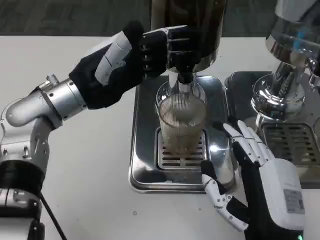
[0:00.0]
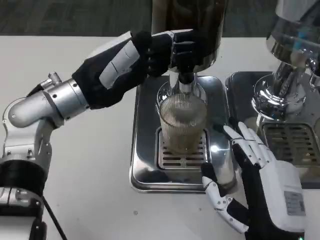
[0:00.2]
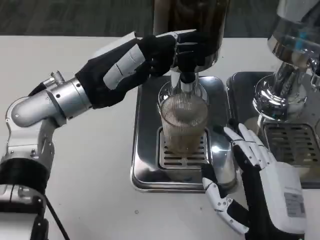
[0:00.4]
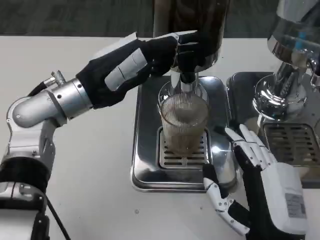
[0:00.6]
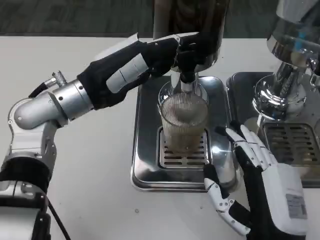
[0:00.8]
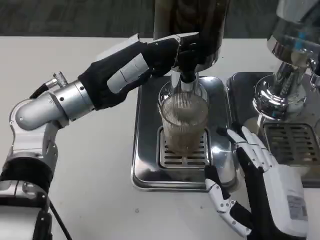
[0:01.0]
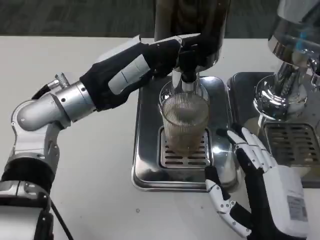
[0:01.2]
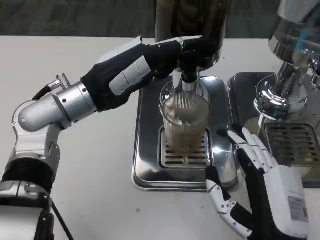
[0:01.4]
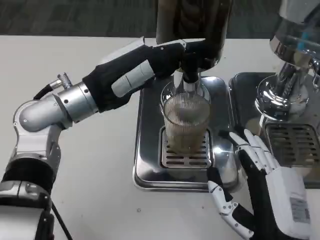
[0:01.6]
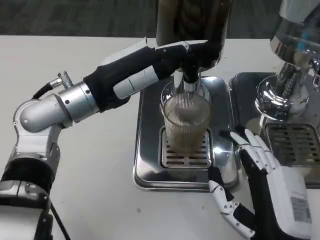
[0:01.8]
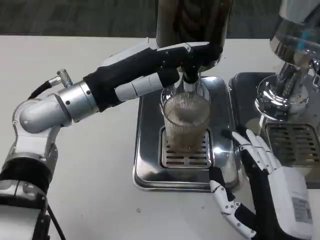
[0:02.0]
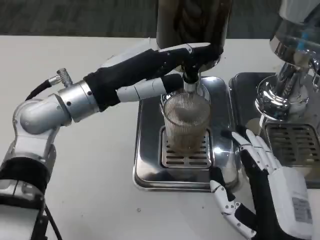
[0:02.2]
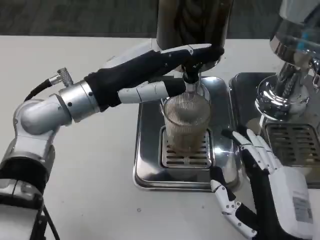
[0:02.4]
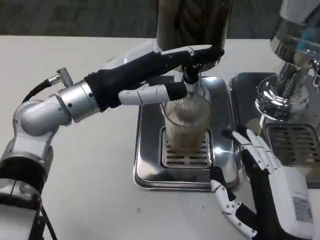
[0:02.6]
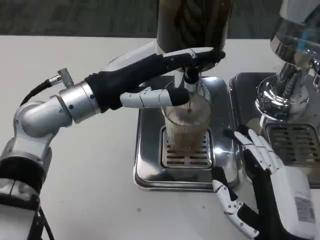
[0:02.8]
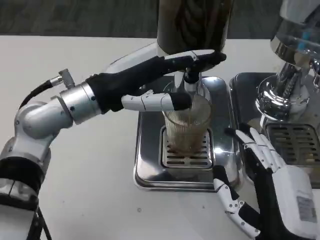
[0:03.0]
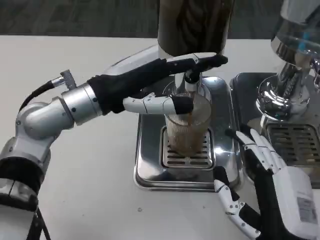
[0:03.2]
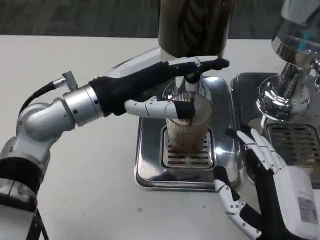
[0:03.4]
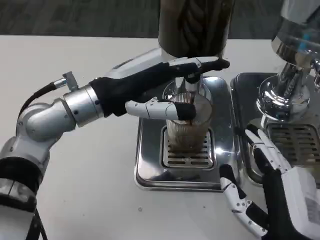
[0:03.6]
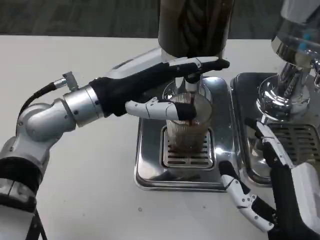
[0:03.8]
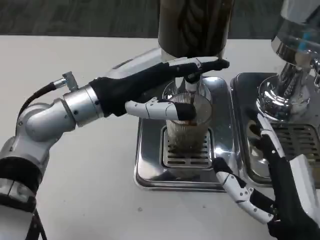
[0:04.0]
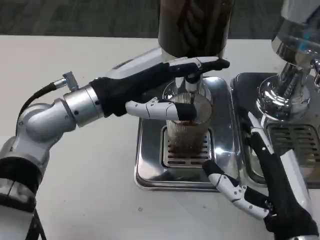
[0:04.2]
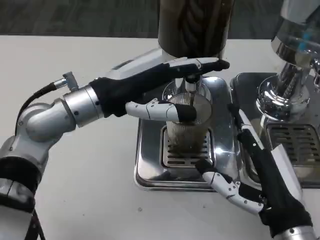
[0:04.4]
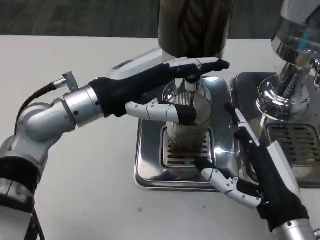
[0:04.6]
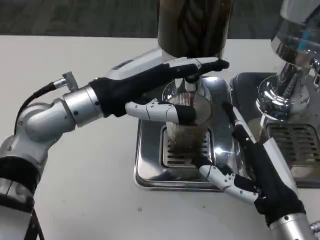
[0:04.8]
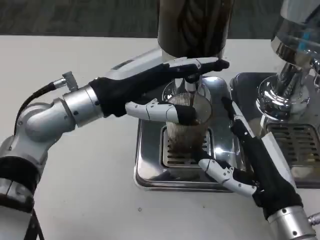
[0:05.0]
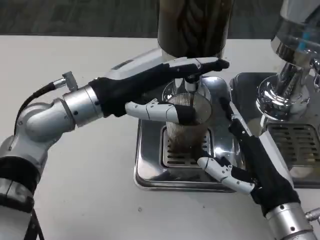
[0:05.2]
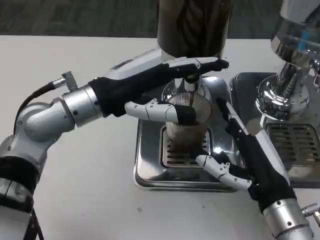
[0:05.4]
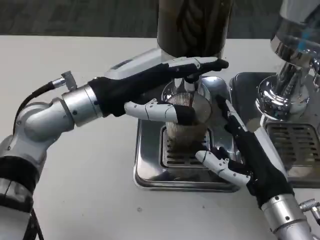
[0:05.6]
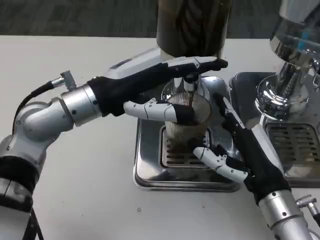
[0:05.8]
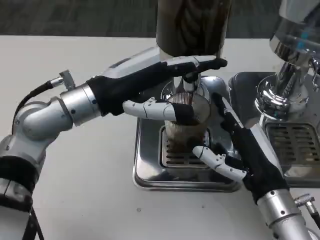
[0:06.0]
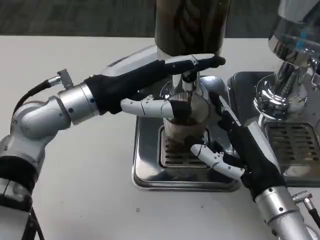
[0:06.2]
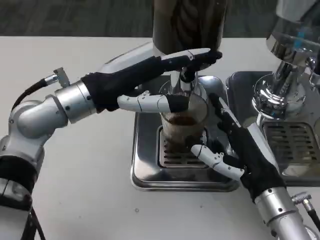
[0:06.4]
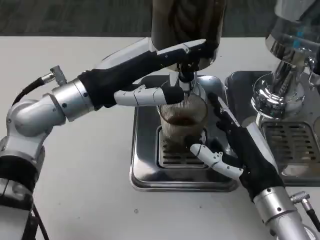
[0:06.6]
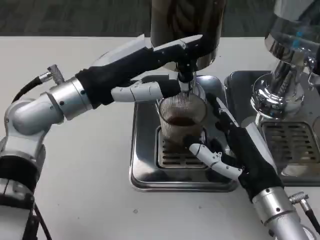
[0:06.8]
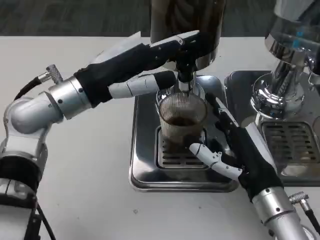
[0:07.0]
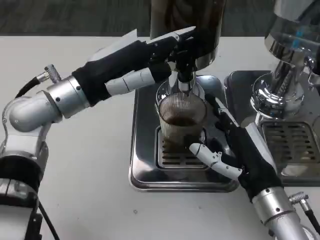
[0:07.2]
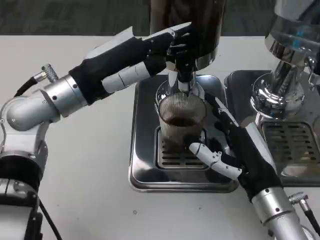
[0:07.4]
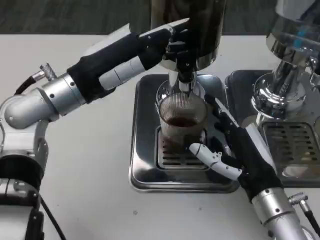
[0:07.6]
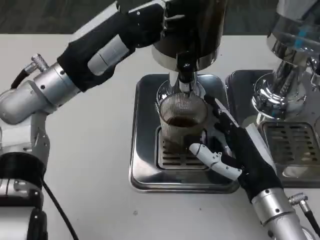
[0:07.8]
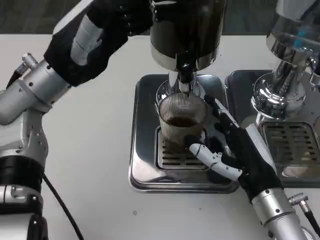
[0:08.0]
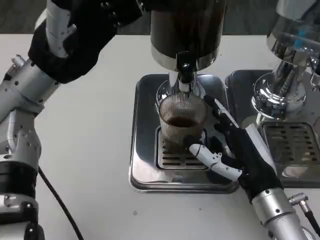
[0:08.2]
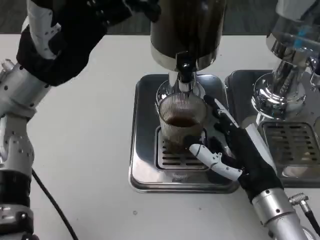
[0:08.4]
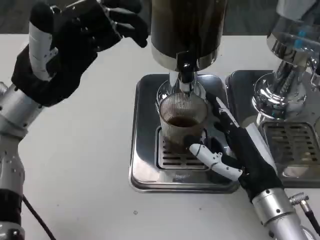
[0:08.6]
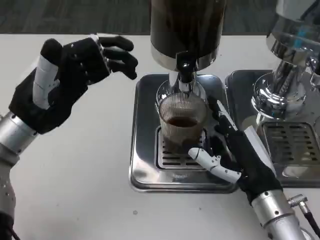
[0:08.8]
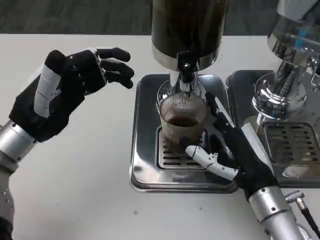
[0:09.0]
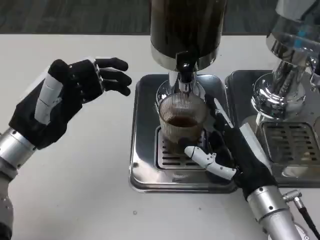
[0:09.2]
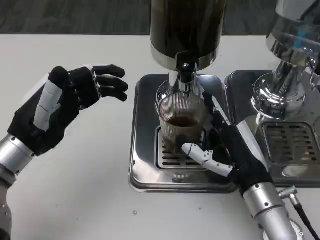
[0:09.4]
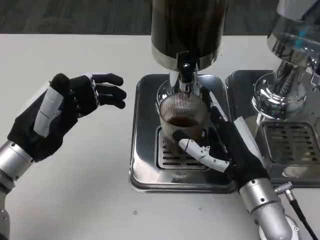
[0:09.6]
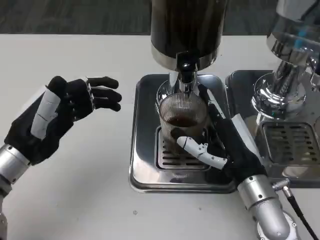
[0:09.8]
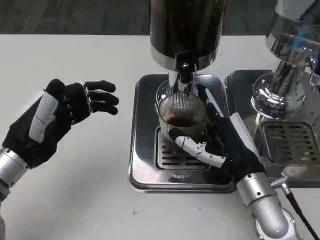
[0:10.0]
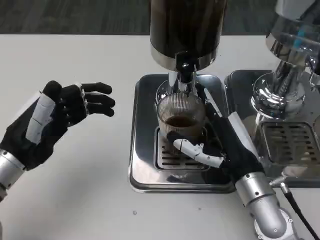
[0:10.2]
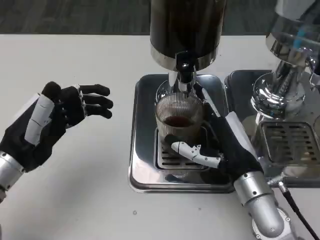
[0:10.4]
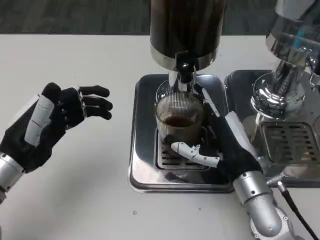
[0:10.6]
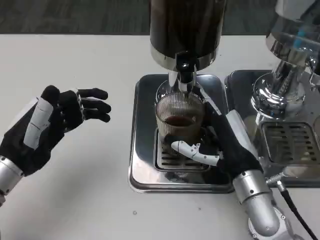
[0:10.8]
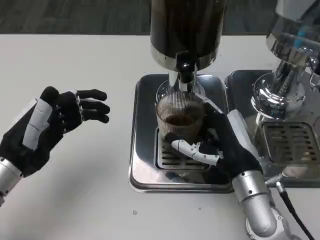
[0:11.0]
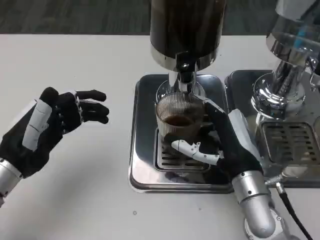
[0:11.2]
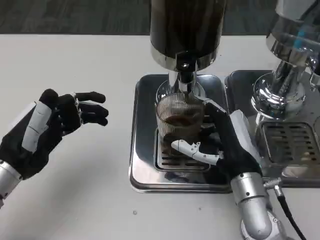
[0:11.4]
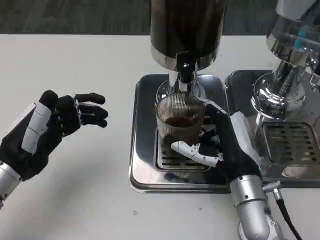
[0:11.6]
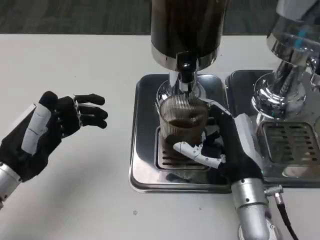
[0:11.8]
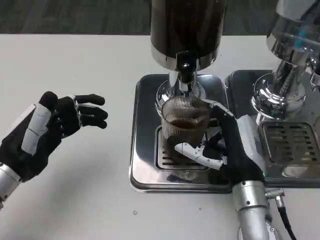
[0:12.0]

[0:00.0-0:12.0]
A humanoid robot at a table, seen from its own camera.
Task of the whole recording: Grasp the cup under the faucet to collect the drink, then remove the cup.
0:04.4 to 0:06.0: The right hand goes about 5 cm forward.
0:07.6 to 0:09.0: The left hand shifts about 10 cm to the left, backward and downward.
0:10.4 to 0:12.0: The hands move only a little.

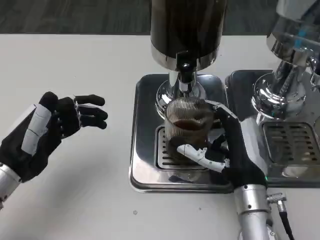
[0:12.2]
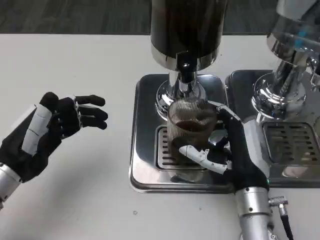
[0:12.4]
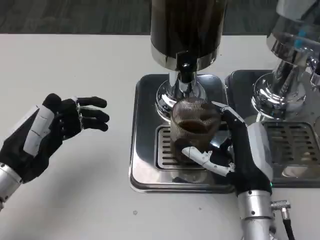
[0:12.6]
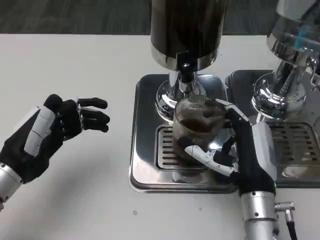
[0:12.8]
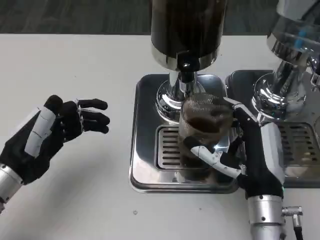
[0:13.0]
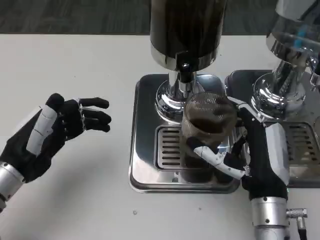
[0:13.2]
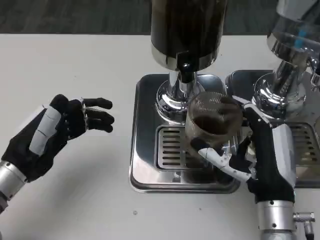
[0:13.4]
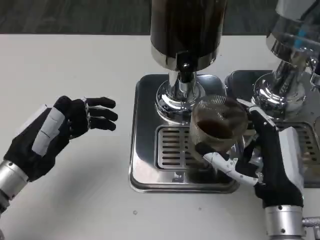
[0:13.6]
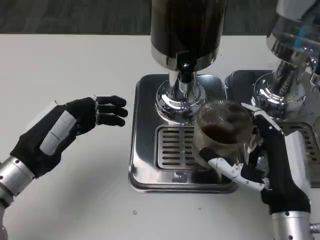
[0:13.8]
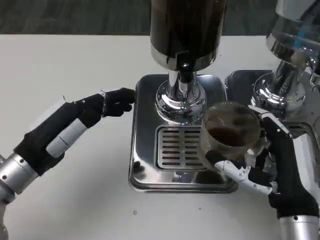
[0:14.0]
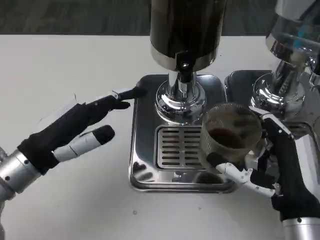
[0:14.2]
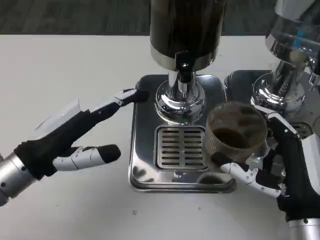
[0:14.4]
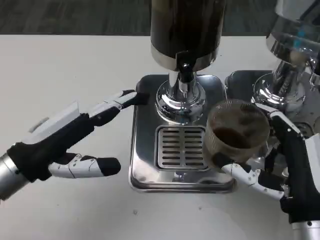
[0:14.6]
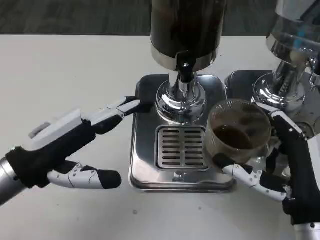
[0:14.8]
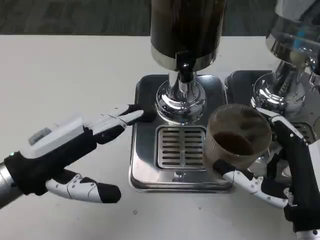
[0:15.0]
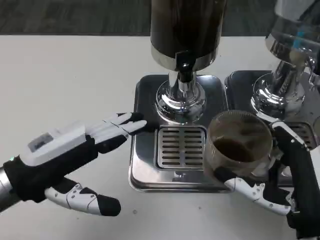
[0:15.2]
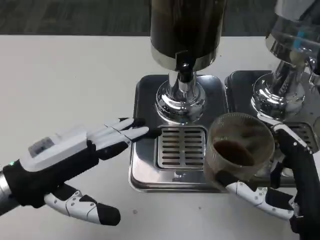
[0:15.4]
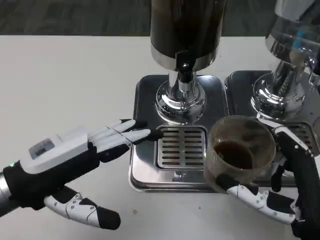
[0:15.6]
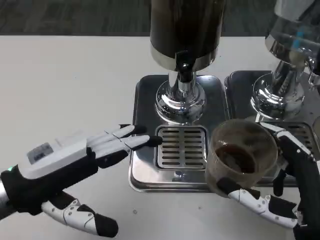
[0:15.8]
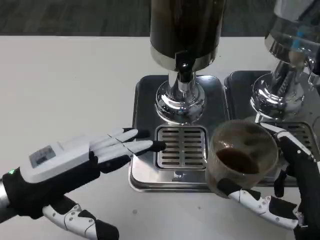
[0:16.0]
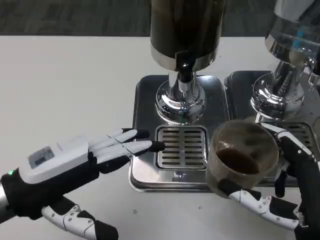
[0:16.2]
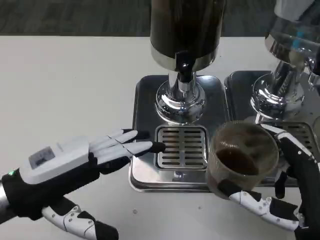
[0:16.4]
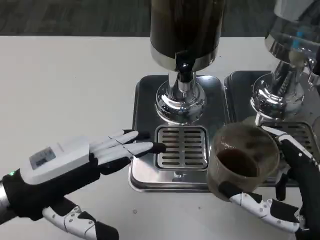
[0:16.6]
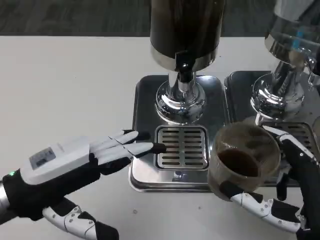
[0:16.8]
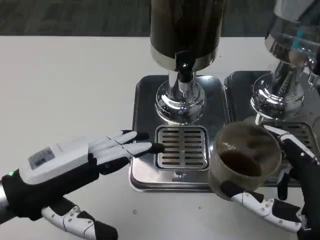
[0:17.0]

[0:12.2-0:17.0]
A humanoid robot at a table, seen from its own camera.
Task of the whole recording: Grasp the cup under the faucet to collect the drink, then remove the cup.
0:12.2 to 0:13.8: The right hand shifts about 5 cm backward.
0:13.8 to 0:15.4: The left hand moves about 5 cm. Meanwhile the right hand heads backward, covering about 5 cm.
0:15.4 to 0:17.0: There are only small adjustments of the hands.

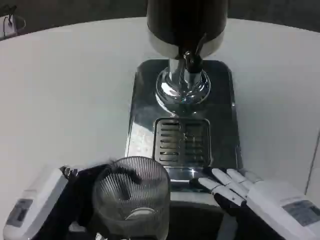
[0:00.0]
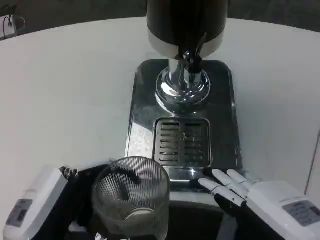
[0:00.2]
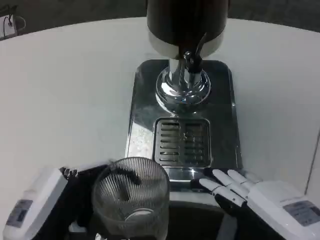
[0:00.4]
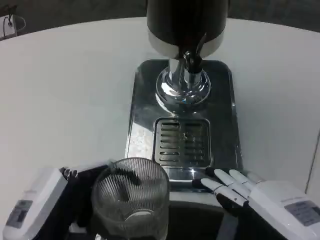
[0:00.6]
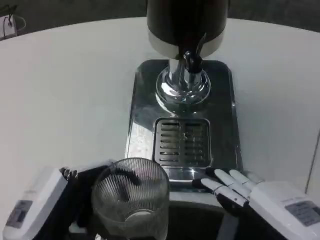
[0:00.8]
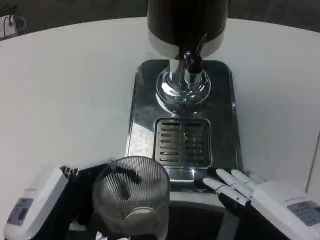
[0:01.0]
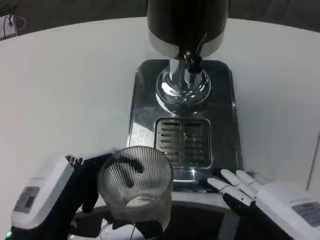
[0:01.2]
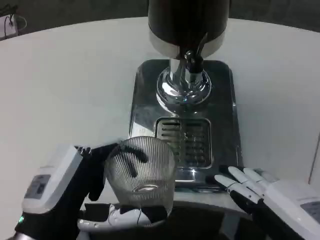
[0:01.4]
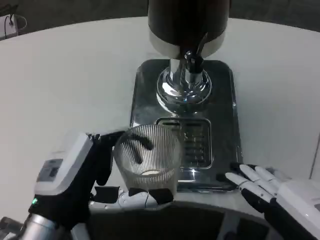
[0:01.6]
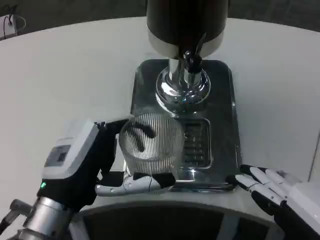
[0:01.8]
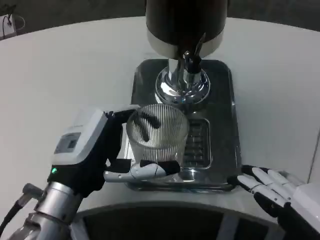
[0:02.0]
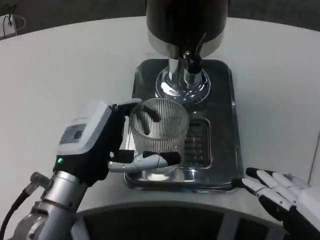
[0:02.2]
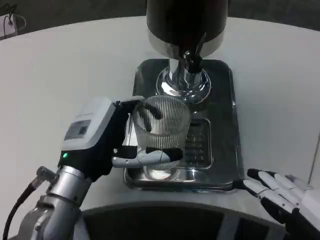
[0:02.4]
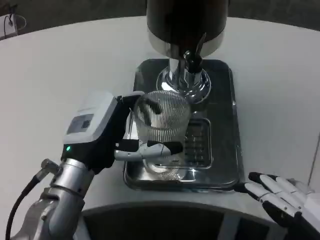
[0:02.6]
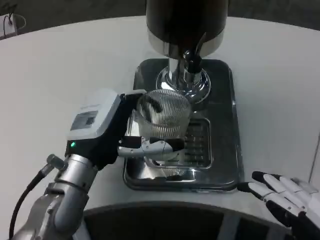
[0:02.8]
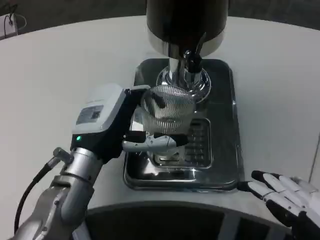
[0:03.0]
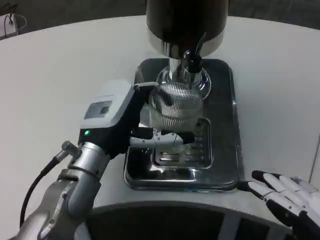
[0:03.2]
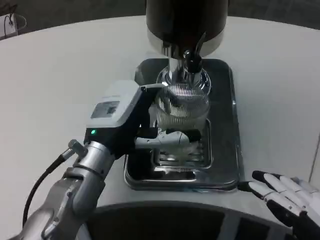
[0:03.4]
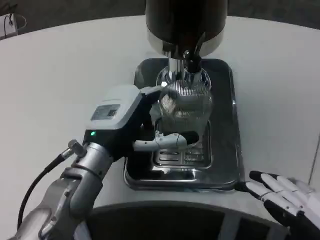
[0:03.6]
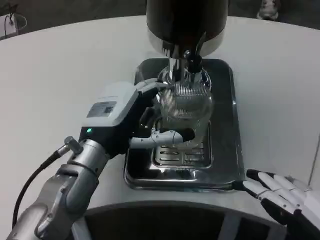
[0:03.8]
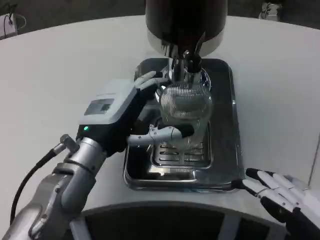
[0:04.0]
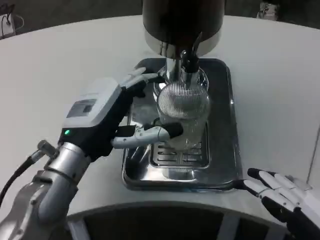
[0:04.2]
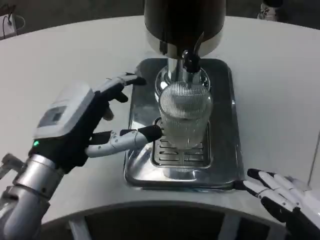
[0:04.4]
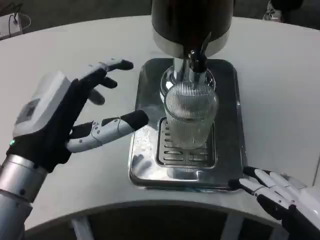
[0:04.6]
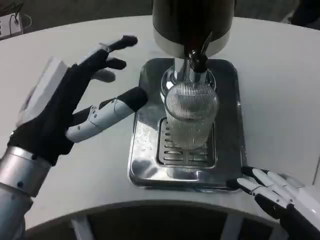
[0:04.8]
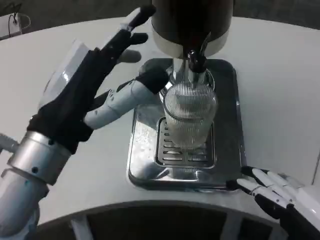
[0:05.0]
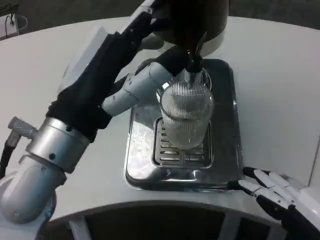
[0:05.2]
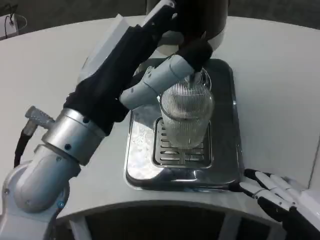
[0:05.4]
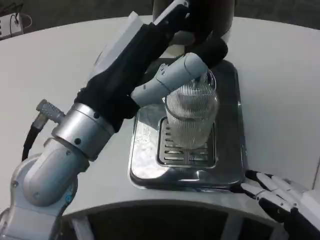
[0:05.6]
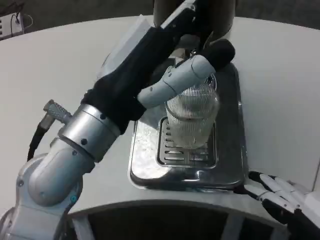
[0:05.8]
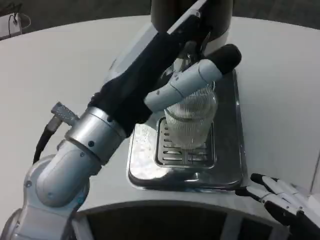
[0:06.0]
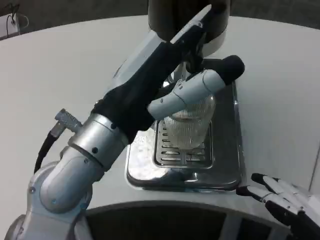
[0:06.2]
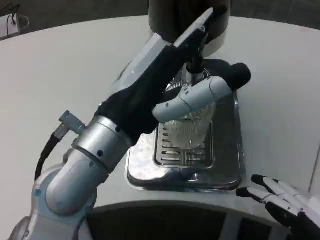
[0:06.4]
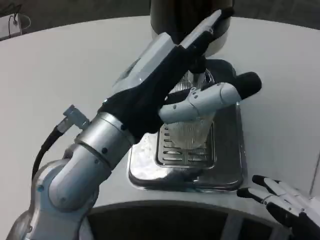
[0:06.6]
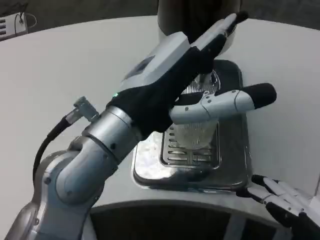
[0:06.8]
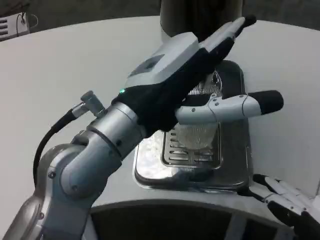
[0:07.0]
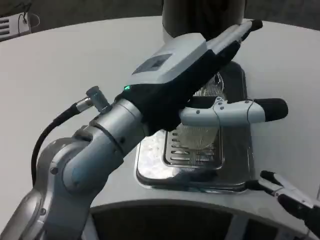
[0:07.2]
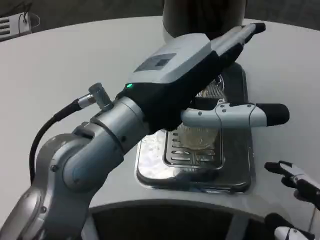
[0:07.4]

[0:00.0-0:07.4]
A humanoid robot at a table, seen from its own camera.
Task of the whole recording: Grasp the cup under the faucet to collect the drink, then remove the cup.
0:00.0 to 0:01.4: There are only small adjustments of the hands.
0:01.4 to 0:03.0: The left hand moves forward, approximately 10 cm.
0:03.0 to 0:04.4: The left hand moves backward, roughly 5 cm.
0:04.4 to 0:06.0: The left hand is displaced upward and to the right by about 10 cm.
